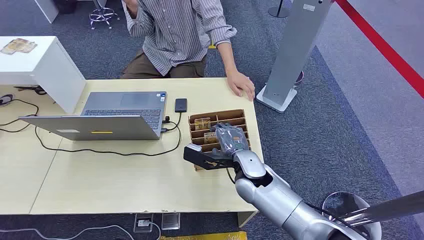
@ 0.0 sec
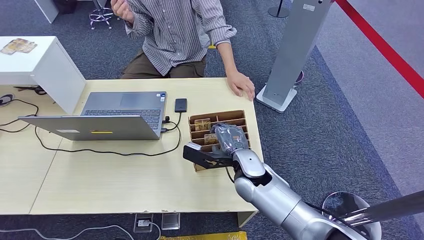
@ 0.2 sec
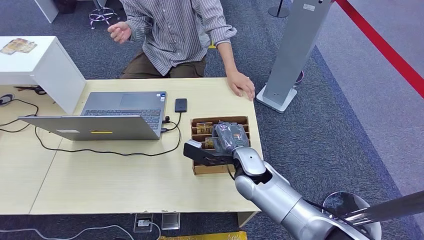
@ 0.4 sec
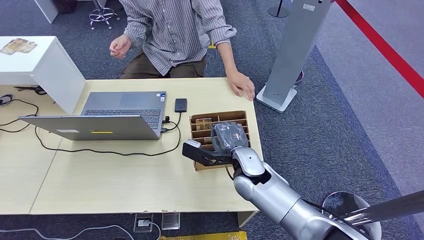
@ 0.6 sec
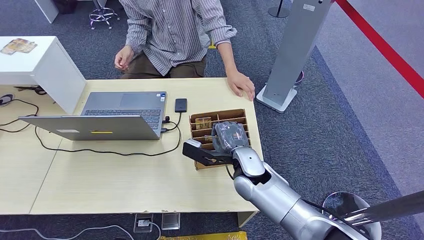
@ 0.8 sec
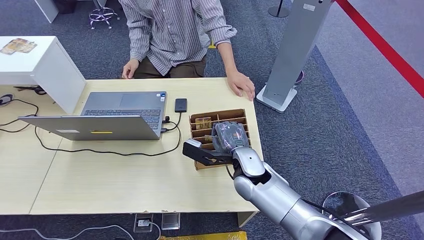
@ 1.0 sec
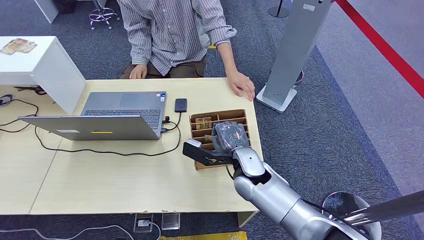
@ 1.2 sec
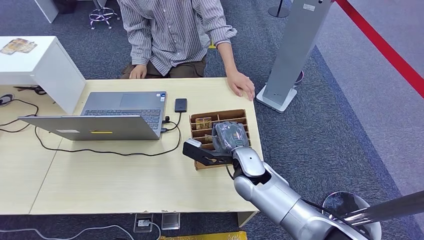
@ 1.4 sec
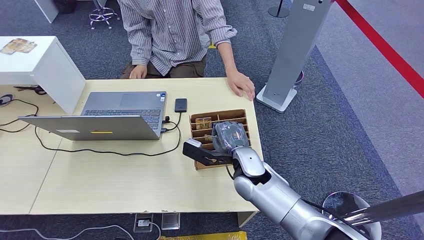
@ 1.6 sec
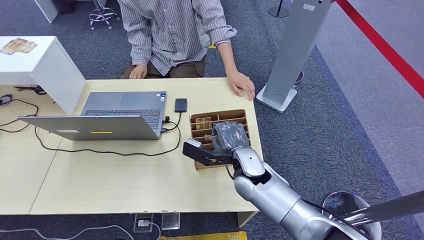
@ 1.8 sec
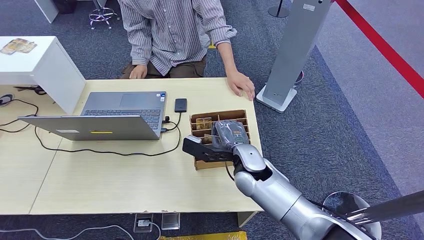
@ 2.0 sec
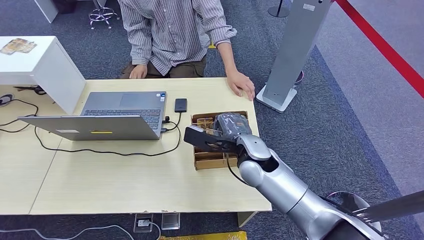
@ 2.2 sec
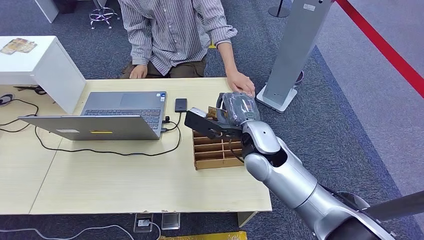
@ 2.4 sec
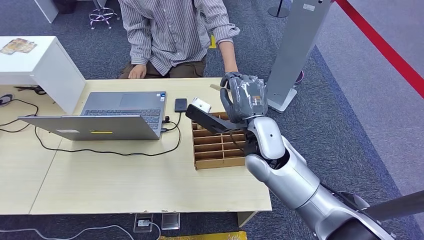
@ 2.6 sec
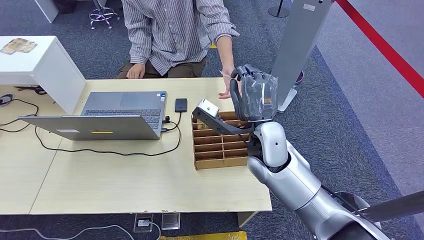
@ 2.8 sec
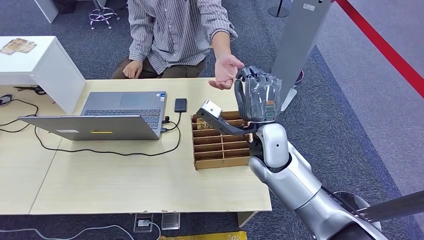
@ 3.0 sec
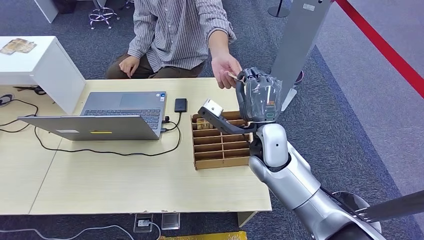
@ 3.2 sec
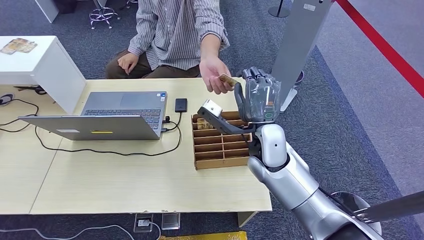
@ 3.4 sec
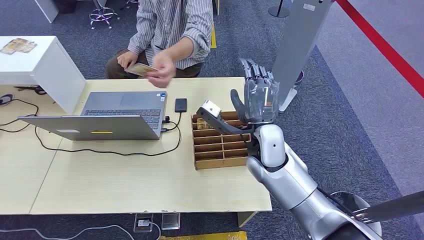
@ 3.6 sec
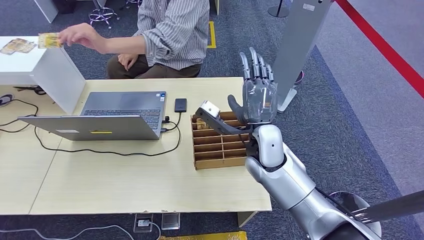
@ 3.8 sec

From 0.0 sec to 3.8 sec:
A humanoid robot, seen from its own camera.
Step, from 0.0 sec to 2.2 sec: Pick up the key card from the card box.
Step, from 3.0 sec to 3.8 sec: Hand the key card to the target.
From 1.2 sec to 2.6 sec: The right hand goes roughly 10 cm upward.
From 2.6 sec to 3.8 sec: The hands stay close to where they were, moving slightly.
